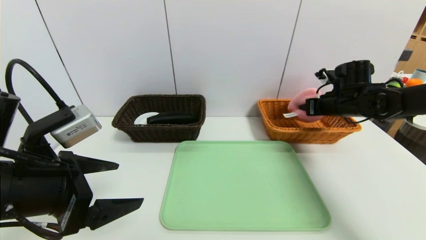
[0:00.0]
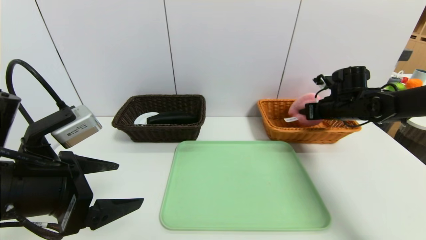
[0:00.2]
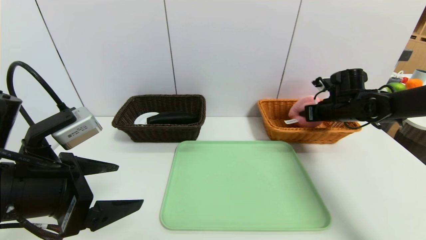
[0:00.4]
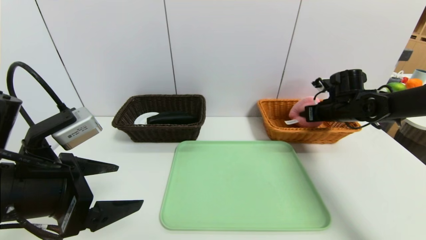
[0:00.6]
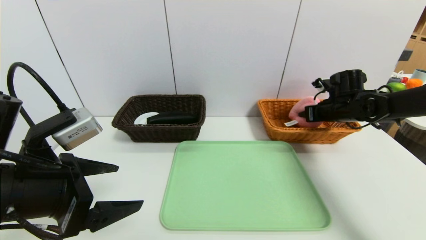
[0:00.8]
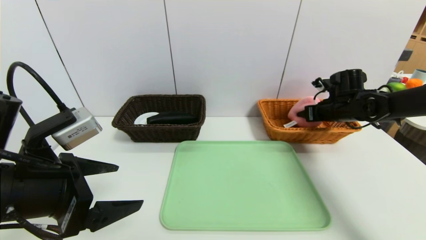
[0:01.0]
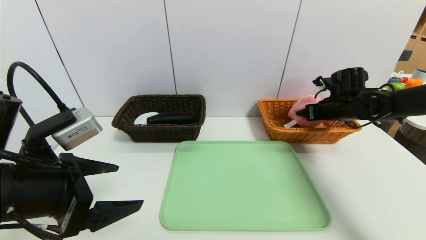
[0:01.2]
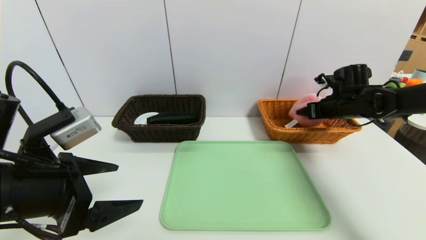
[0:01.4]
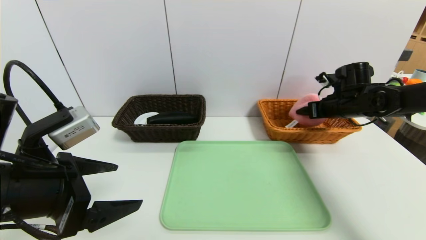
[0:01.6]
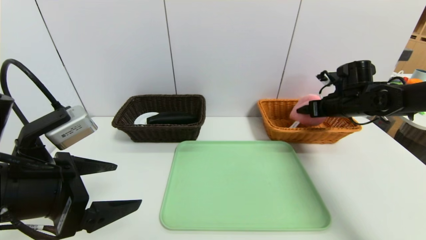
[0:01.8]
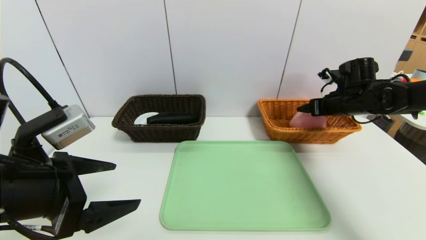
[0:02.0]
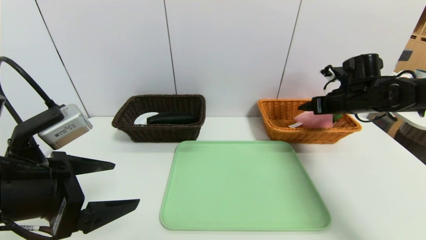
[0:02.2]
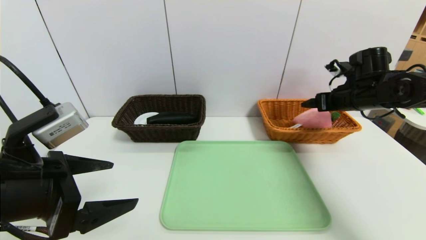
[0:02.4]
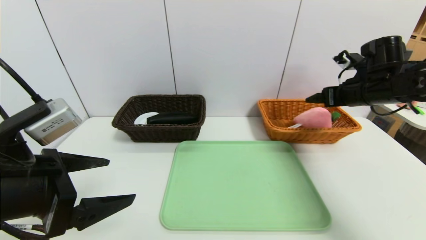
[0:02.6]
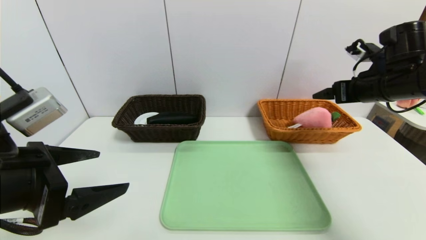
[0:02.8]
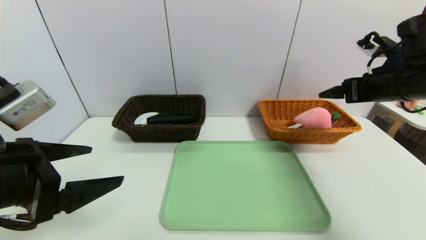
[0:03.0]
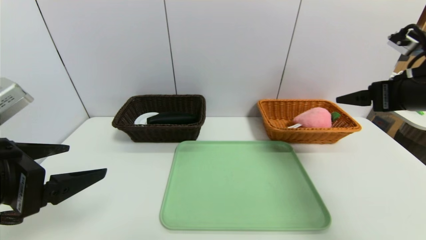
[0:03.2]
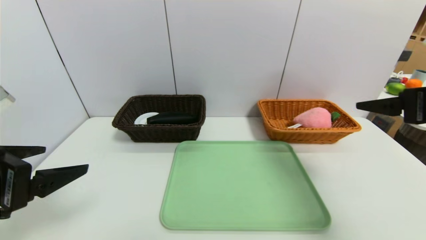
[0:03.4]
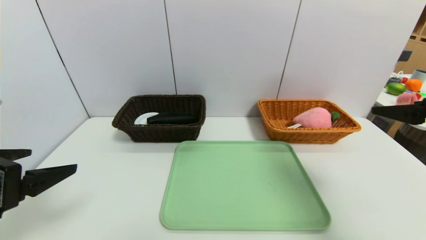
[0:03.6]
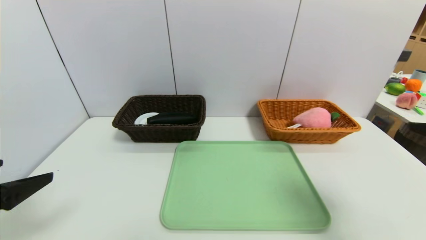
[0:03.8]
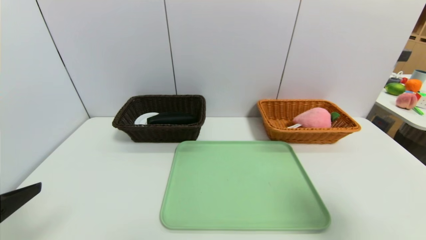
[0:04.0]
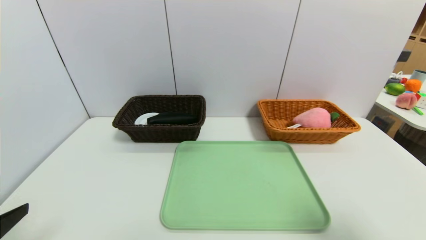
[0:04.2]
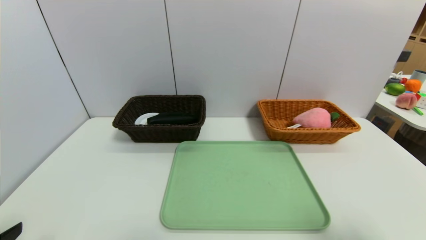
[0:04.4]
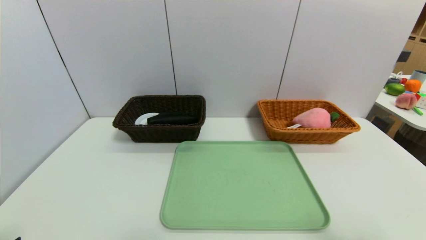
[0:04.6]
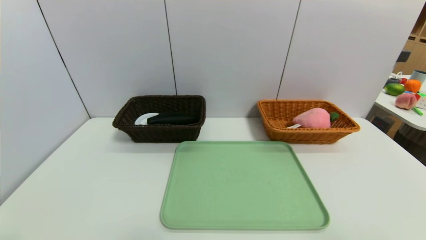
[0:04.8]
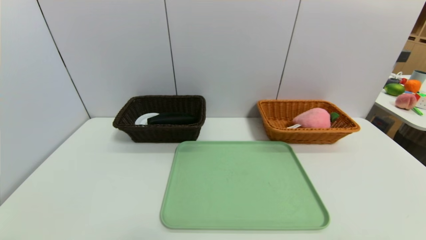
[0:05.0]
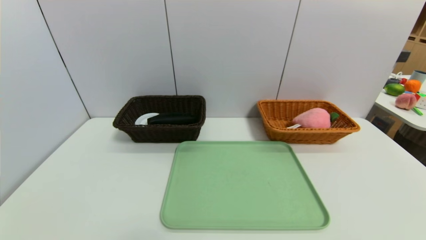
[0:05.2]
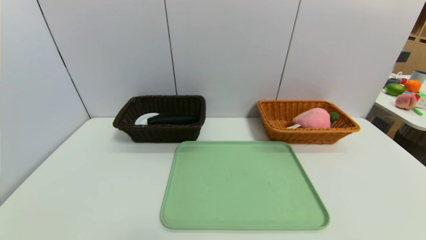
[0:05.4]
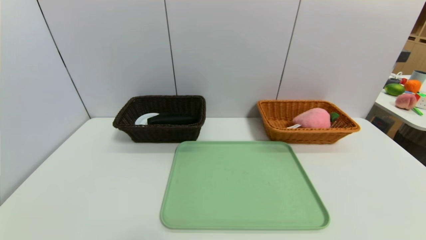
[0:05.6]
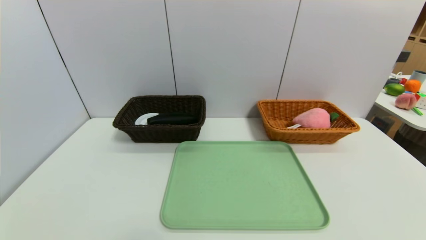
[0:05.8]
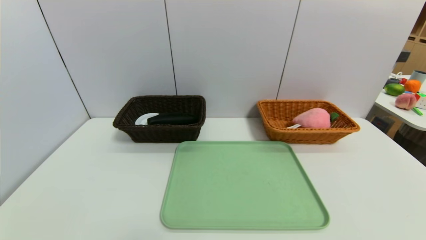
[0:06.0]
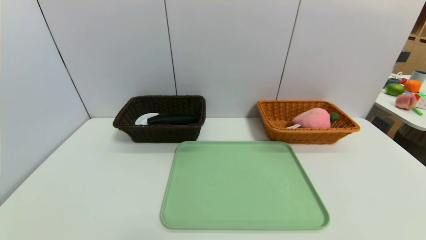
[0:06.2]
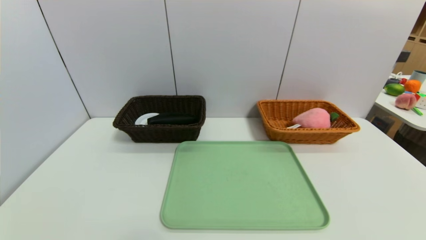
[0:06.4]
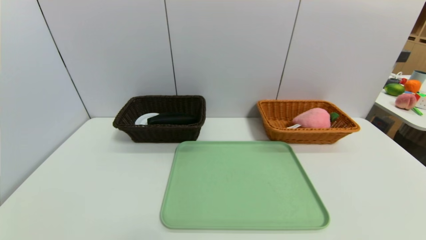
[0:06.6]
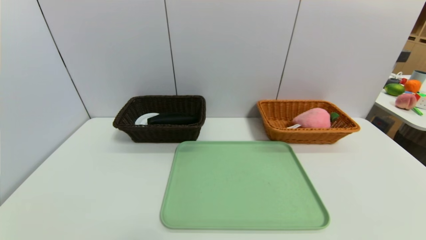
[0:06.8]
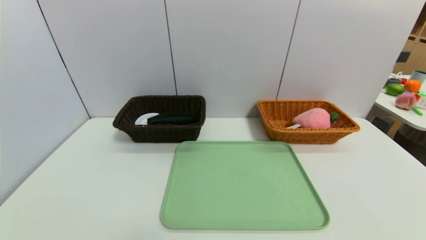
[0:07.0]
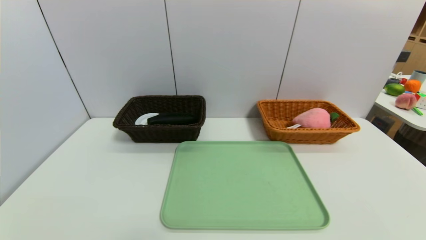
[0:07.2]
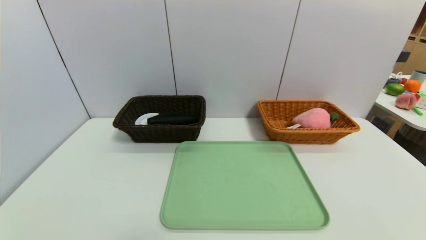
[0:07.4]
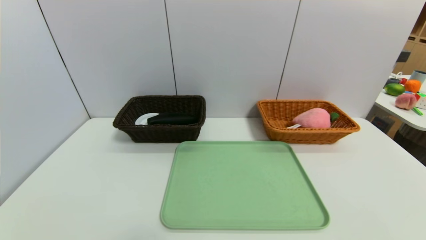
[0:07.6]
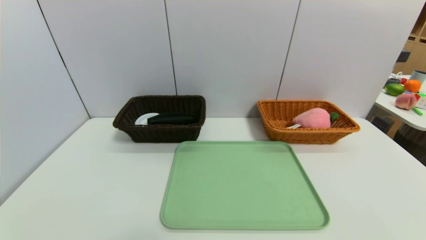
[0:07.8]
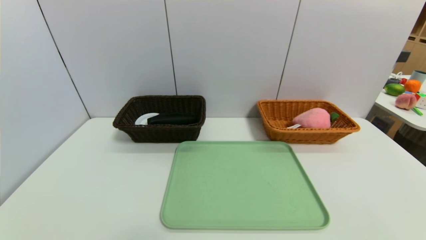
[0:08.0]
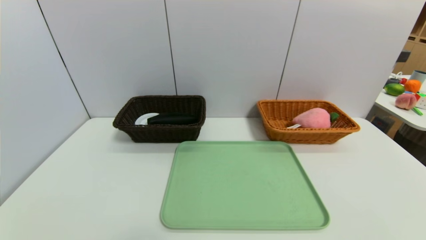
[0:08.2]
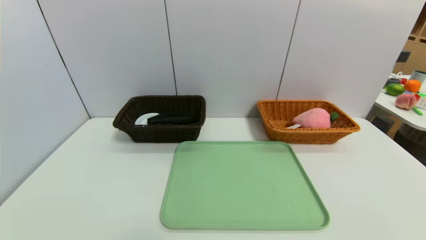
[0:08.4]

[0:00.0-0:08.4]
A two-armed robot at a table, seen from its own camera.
Task of the whole recording: place the food in the right basket with the right gripper, and place the non food items in the left basket with the left gripper.
Step, 0:00.0 to 0:02.2: Grasp the peach doll and put it in the right basket.
0:00.0 to 0:01.4: The right gripper opens up.
0:01.4 to 0:02.8: The right gripper moves upward and backward, roughly 10 cm.
0:02.8 to 0:04.2: The right gripper is displaced backward by roughly 30 cm, while the left gripper goes roughly 10 cm backward and to the left.
0:04.2 to 0:05.6: Both grippers move downward and backward, approximately 10 cm.
